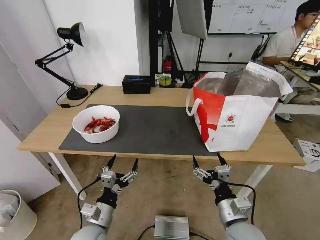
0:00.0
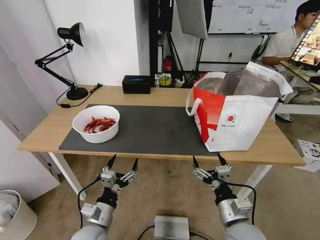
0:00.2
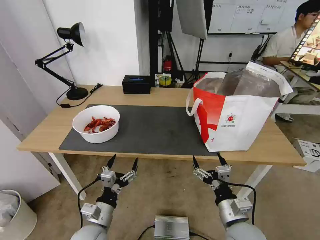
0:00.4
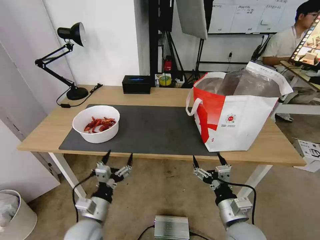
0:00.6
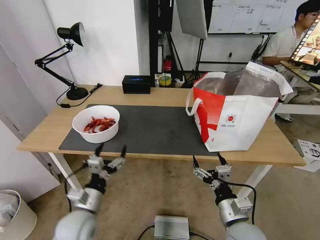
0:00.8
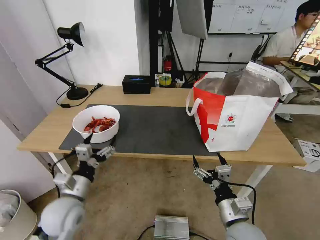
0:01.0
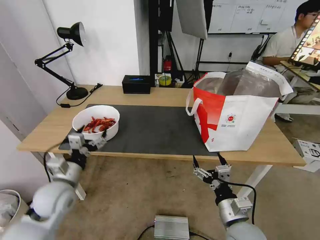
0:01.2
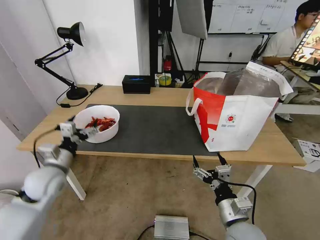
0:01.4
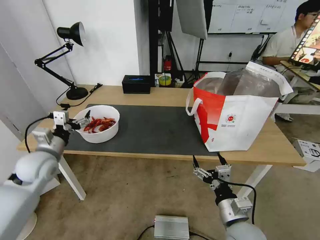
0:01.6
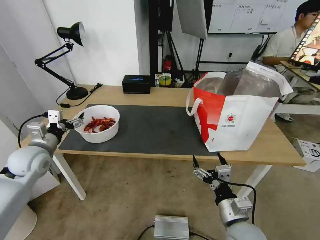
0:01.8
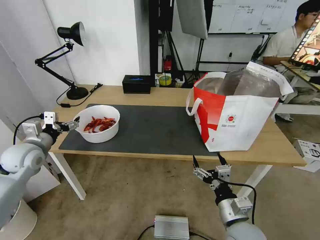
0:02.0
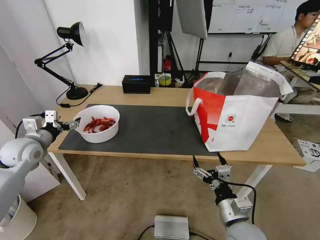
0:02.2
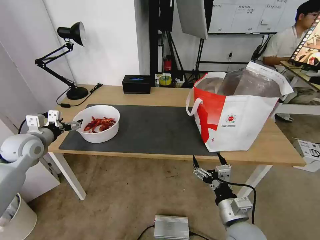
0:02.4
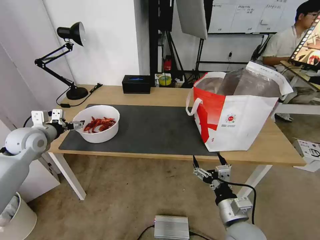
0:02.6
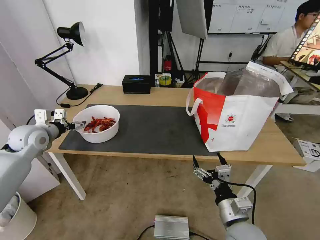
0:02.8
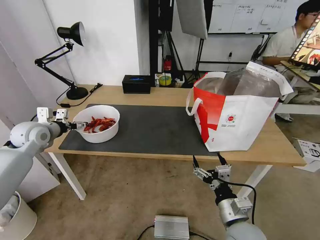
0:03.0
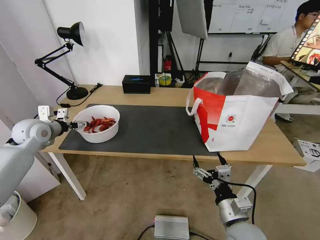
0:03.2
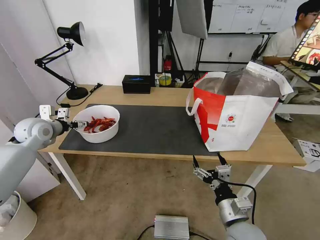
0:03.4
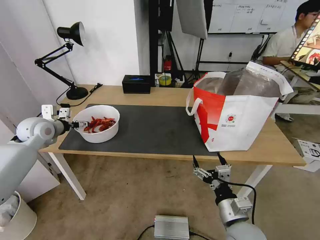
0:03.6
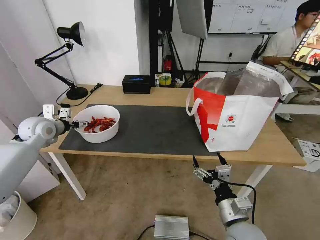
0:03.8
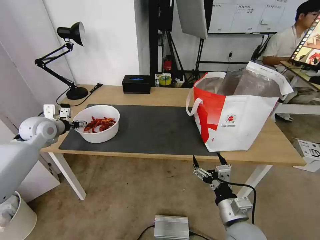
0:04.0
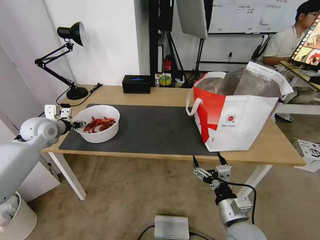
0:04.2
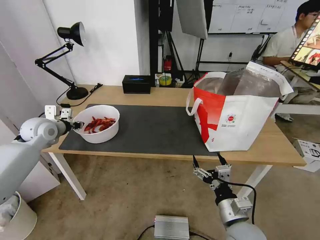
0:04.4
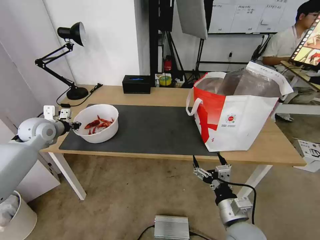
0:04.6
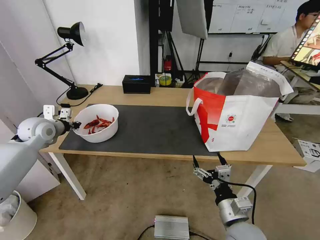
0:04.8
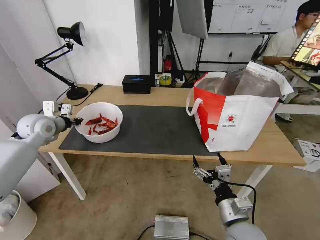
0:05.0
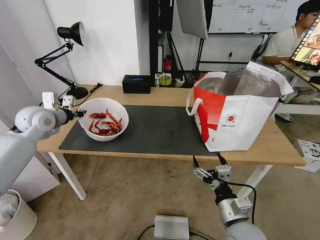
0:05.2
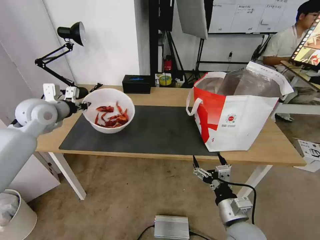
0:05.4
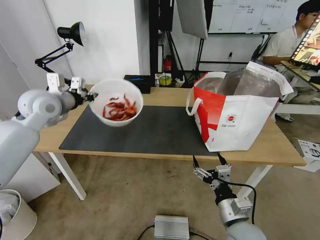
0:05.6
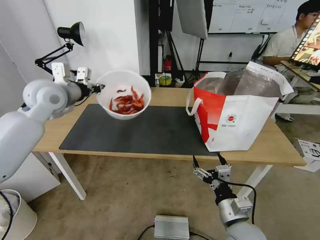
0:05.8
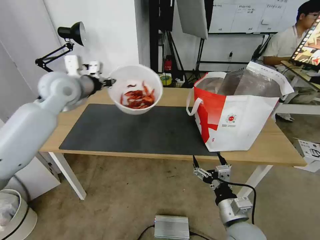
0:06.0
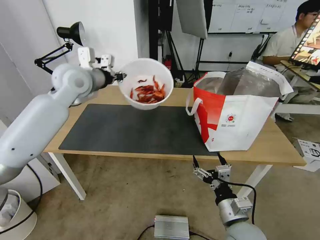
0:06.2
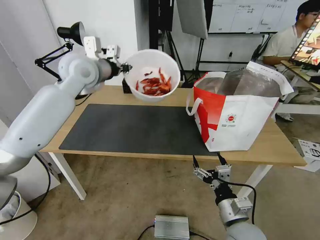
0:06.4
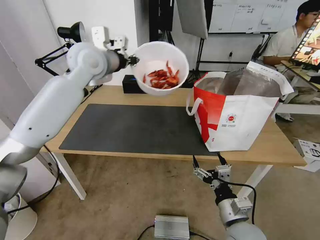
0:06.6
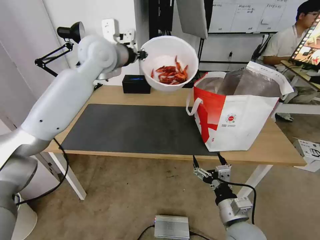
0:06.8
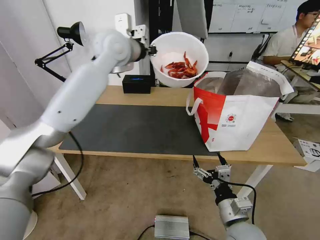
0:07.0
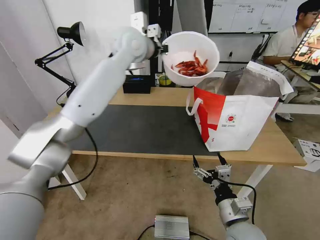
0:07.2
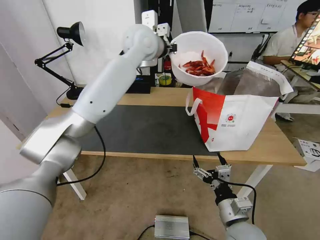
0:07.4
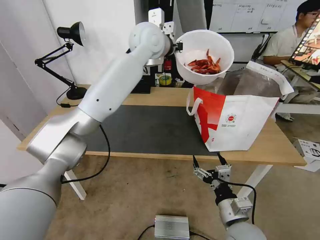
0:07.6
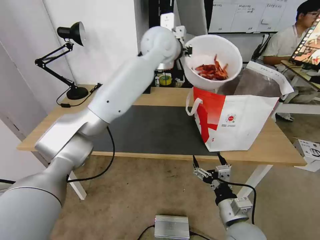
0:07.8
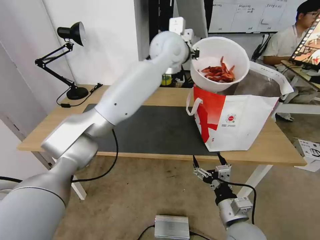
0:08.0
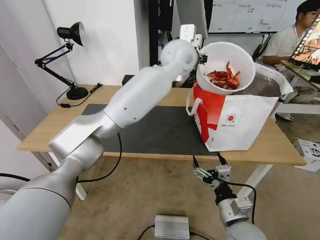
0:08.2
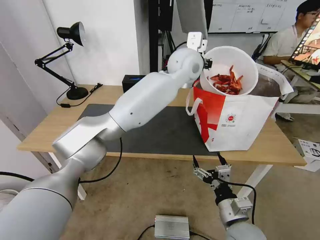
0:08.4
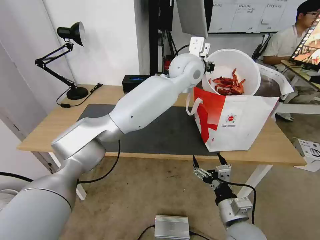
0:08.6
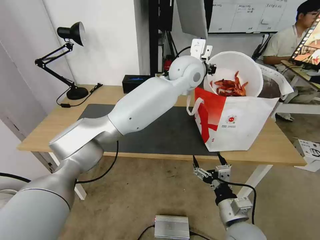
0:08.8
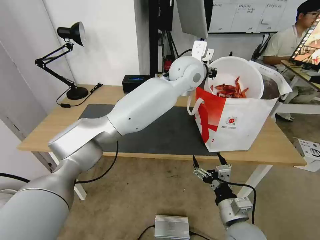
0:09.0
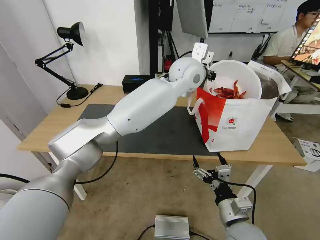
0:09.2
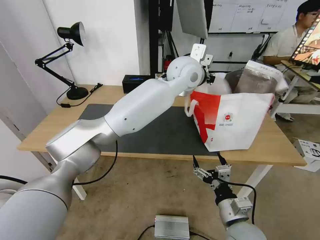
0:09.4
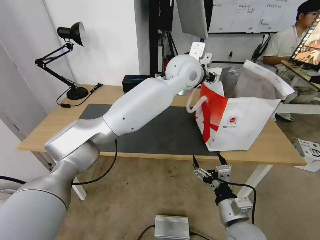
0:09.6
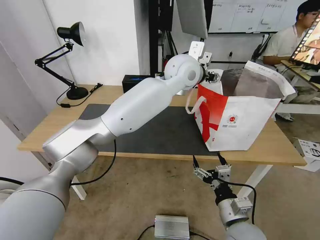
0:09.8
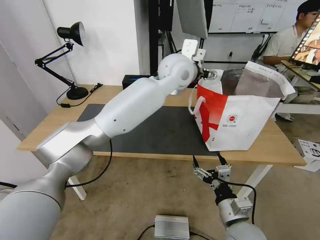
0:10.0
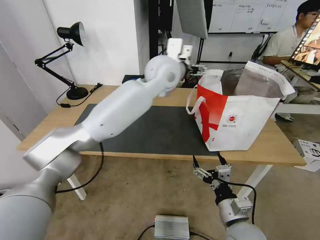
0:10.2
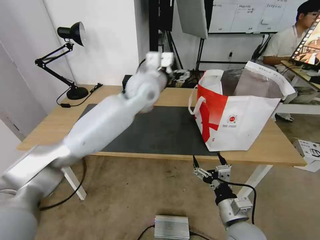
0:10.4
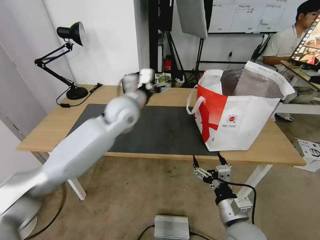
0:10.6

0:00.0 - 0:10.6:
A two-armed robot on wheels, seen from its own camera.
Task of the whole recording: Pick up the trash from the table and place it into the takeout bag.
0:00.0 - 0:01.6: The left gripper heads forward, to the left and upward, covering some 30 cm.
0:01.6 - 0:03.0: The left gripper travels forward by roughly 10 cm.
0:03.0 - 0:04.6: The left gripper closes its fingers.
0:04.6 - 0:06.0: The left gripper goes roughly 20 cm upward and to the right.
0:06.0 - 0:07.6: The left gripper is displaced to the right by roughly 25 cm.
0:07.6 - 0:09.0: The left gripper shifts approximately 15 cm to the right and downward.
0:09.0 - 0:10.6: The left gripper moves to the left and downward, about 20 cm, and opens its fingers.

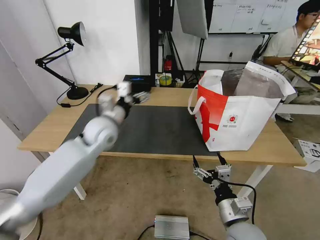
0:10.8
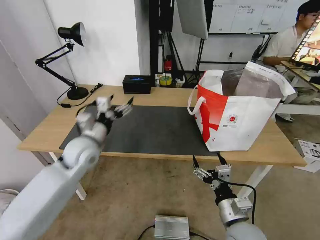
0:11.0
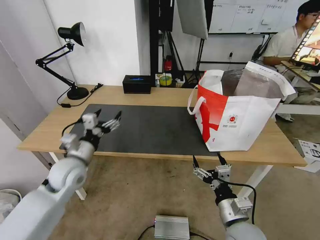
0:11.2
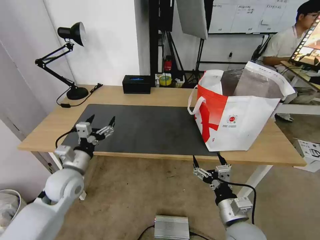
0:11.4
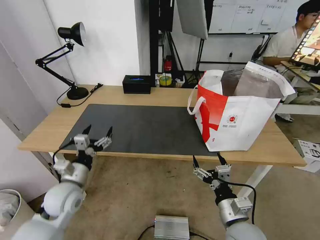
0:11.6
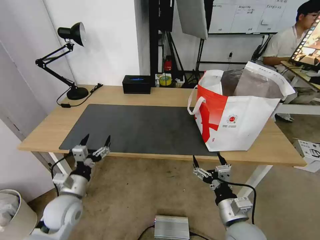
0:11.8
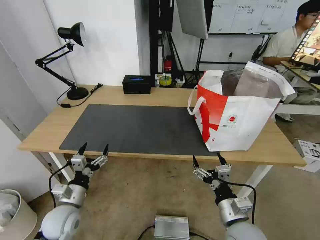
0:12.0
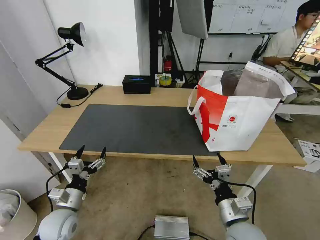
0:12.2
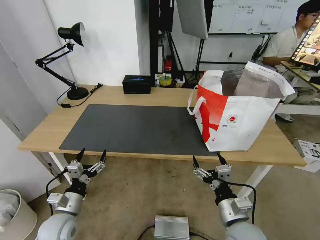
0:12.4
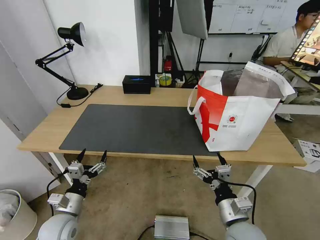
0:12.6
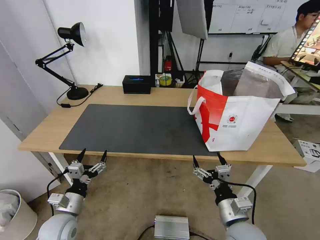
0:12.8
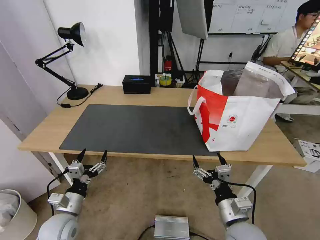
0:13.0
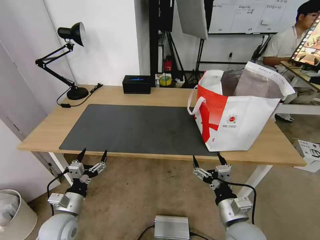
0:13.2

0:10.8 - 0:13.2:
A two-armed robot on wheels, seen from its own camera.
Task of the whole recording: Pick up the trash from the table and place it into the takeout bag.
0:10.8 - 0:12.0: The left gripper travels backward, downward and to the left by about 30 cm.
0:12.0 - 0:13.2: The grippers make only small movements.

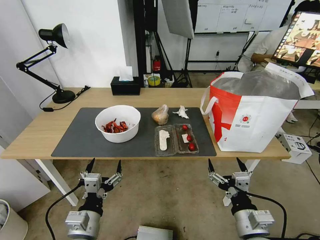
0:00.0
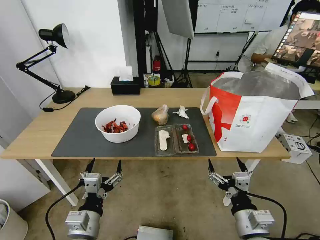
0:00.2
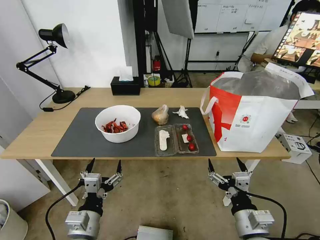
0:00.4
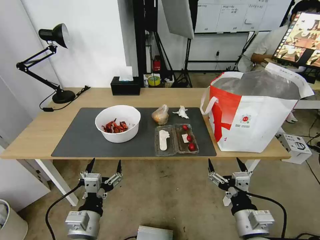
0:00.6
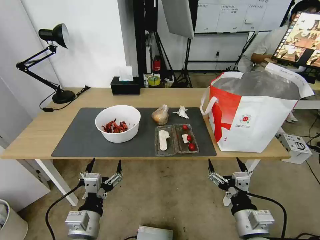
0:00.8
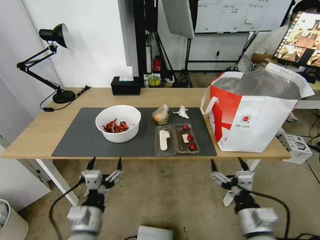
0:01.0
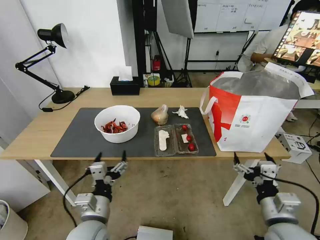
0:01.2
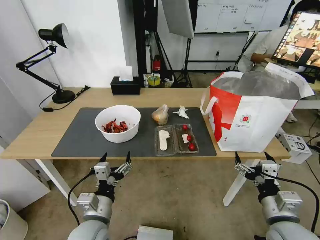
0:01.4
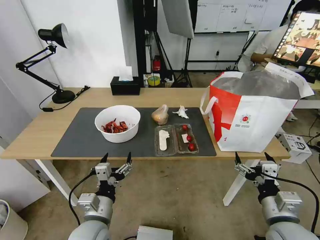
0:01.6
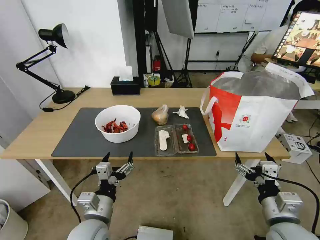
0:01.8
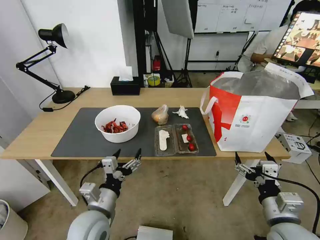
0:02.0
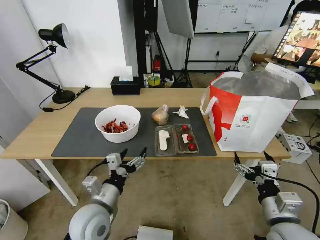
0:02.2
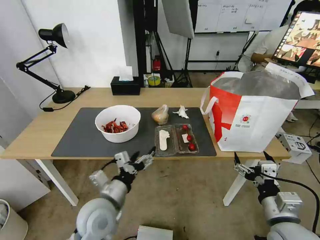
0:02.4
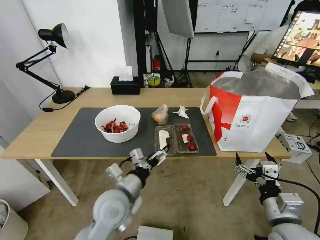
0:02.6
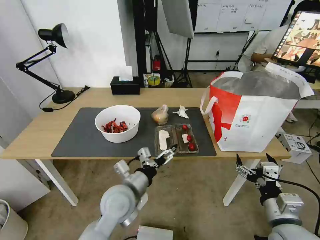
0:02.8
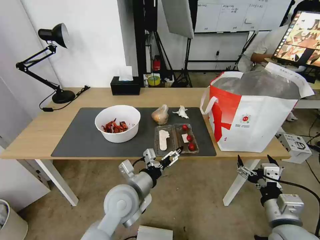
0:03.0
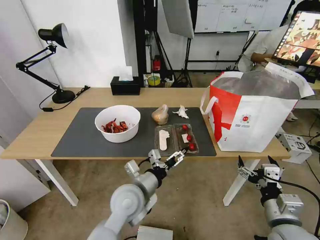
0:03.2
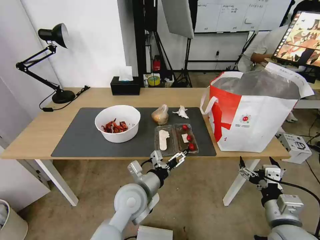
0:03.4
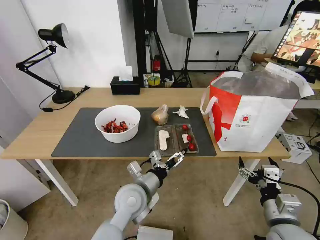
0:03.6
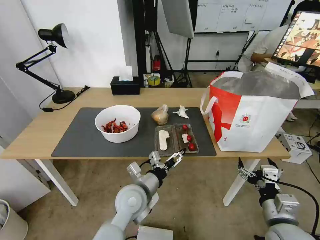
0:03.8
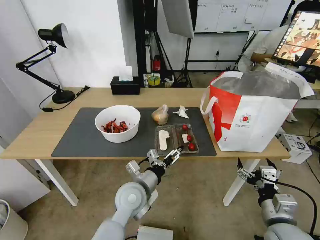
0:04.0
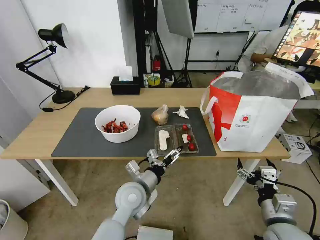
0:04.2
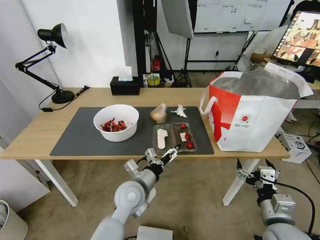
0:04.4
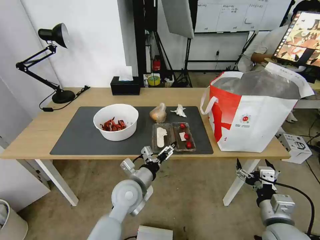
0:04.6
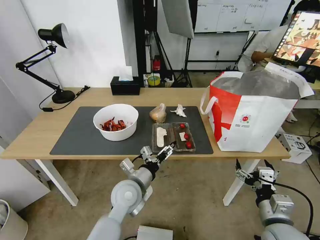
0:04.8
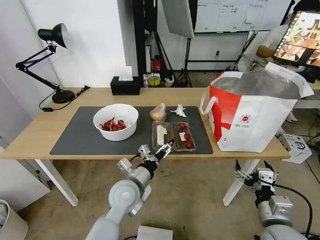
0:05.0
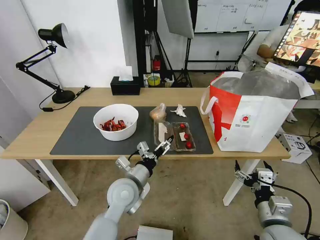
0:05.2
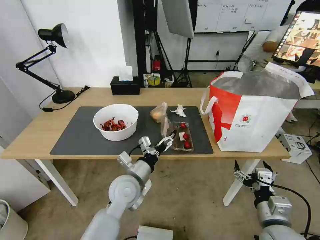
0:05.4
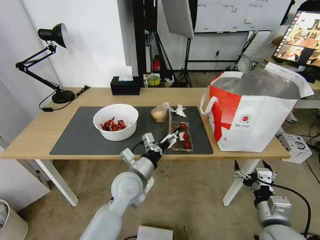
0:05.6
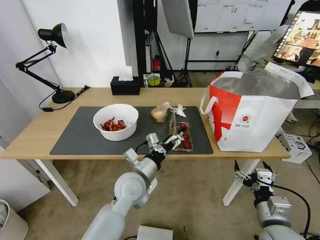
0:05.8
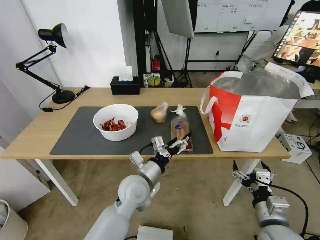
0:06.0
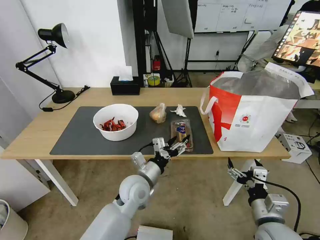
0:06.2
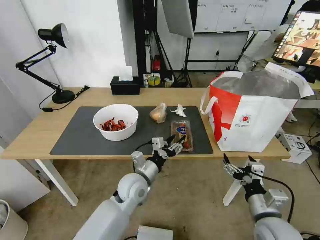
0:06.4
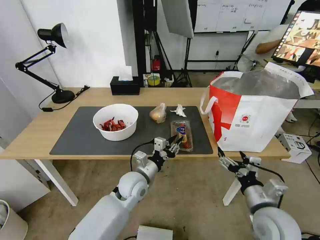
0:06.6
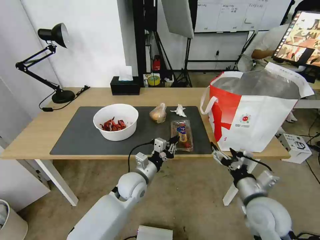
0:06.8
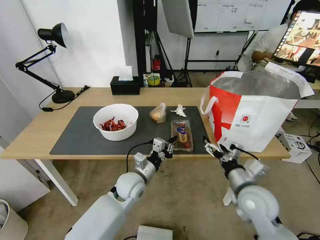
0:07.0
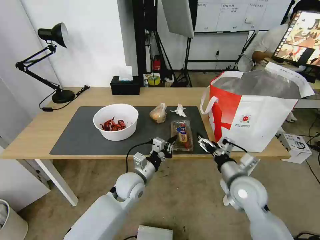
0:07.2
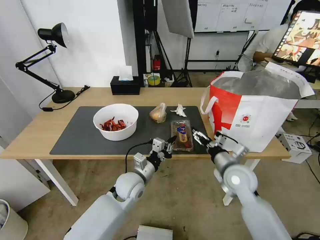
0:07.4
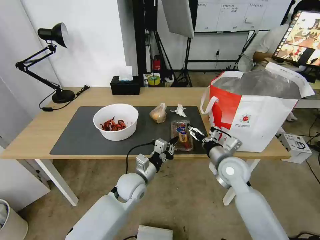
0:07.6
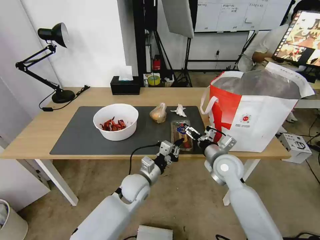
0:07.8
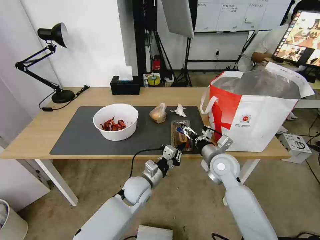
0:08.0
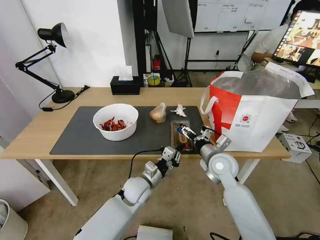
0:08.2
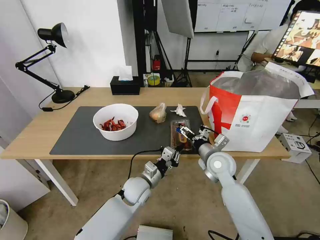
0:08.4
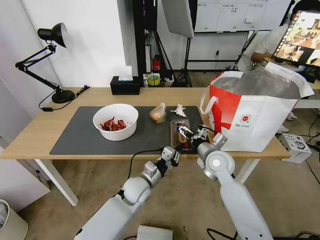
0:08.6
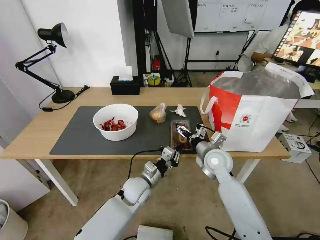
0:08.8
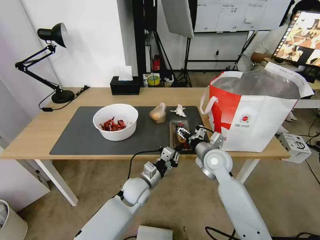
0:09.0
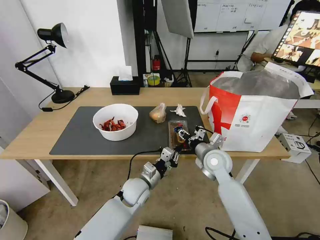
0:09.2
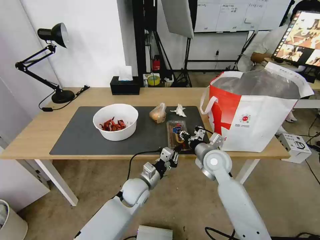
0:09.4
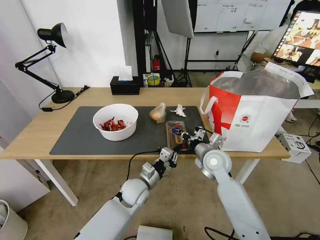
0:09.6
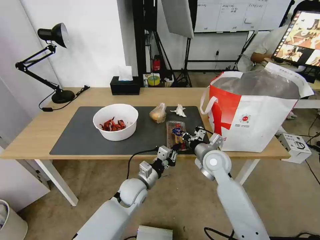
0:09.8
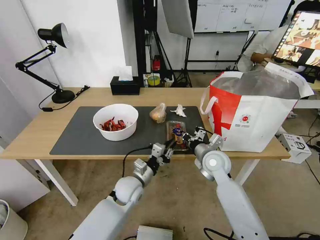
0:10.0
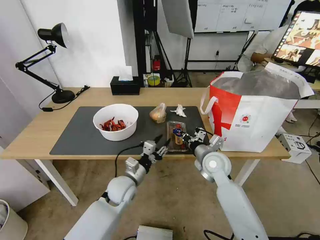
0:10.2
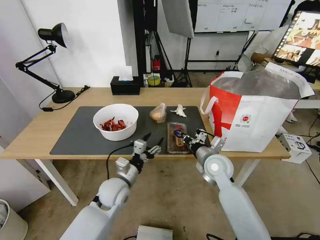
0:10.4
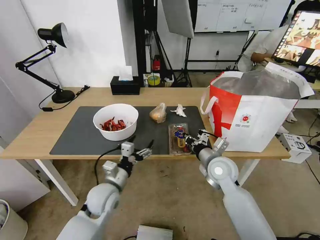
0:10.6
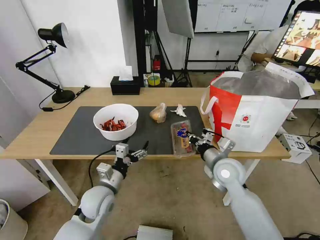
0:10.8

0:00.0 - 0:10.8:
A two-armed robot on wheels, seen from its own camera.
Task of the whole recording: Pick up the trash from the table and place it into the takeout bag.
0:01.6 - 0:03.0: The left gripper goes approximately 10 cm forward and to the right.
0:03.0 - 0:04.6: The left gripper moves about 5 cm.
0:06.2 - 0:07.8: The right gripper is displaced forward by roughly 20 cm; the left gripper closes up.
0:07.8 - 0:09.2: The right gripper closes its fingers.
0:09.2 - 0:10.8: The left gripper shifts roughly 15 cm to the left, upward and backward, and opens its fingers, while the right gripper closes.
